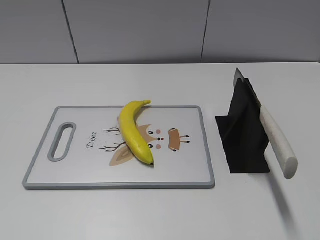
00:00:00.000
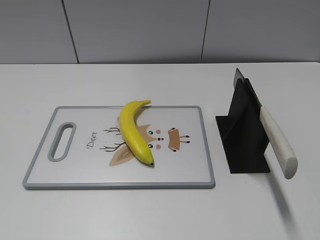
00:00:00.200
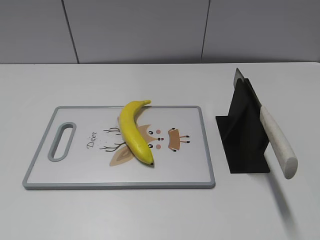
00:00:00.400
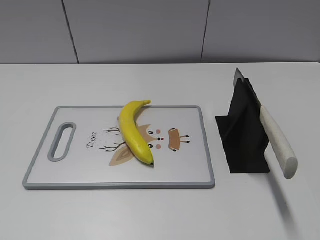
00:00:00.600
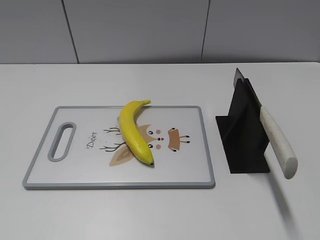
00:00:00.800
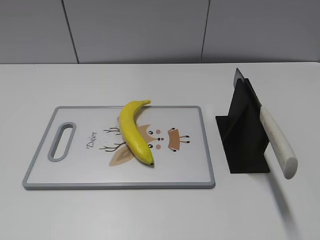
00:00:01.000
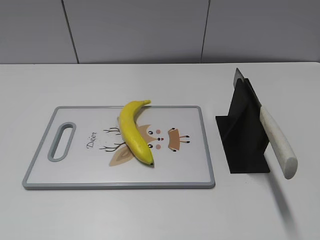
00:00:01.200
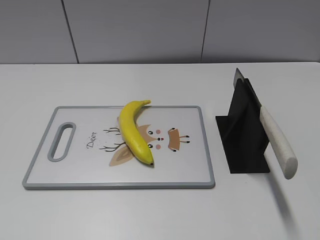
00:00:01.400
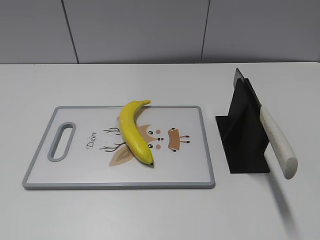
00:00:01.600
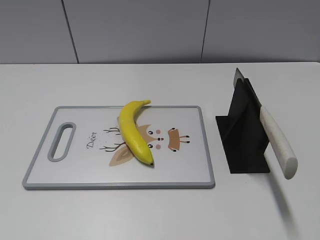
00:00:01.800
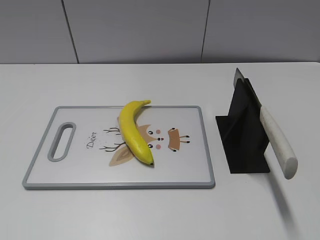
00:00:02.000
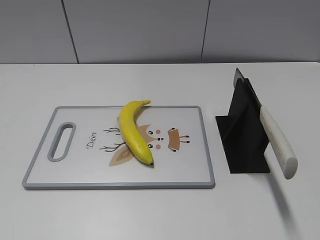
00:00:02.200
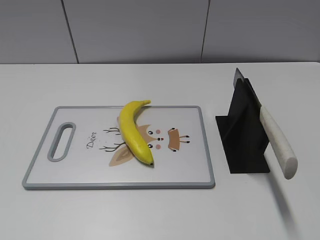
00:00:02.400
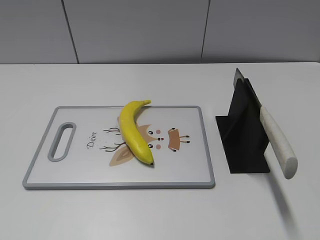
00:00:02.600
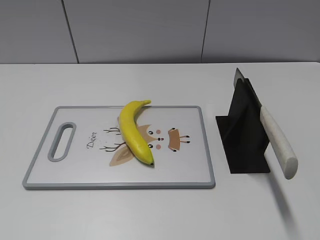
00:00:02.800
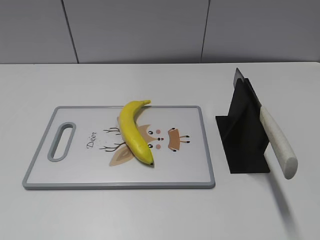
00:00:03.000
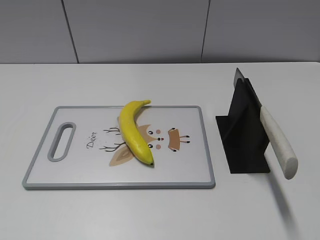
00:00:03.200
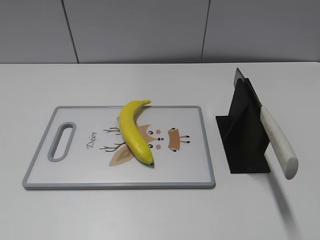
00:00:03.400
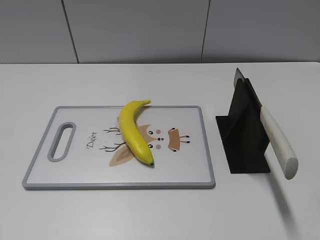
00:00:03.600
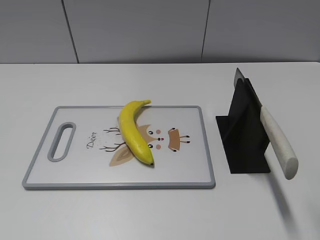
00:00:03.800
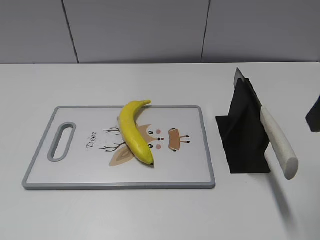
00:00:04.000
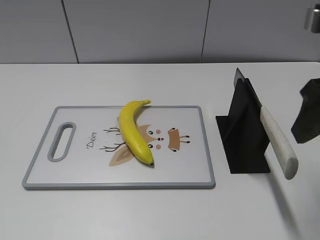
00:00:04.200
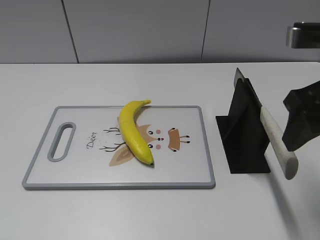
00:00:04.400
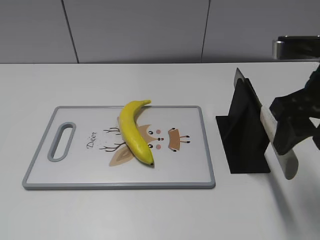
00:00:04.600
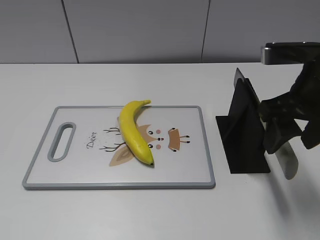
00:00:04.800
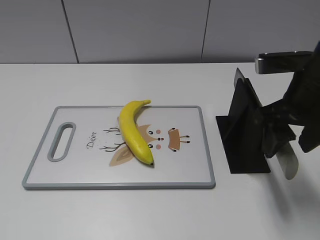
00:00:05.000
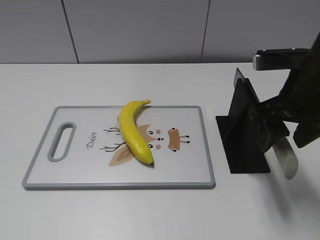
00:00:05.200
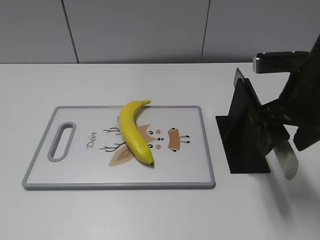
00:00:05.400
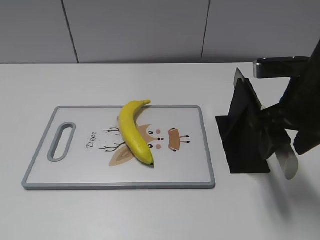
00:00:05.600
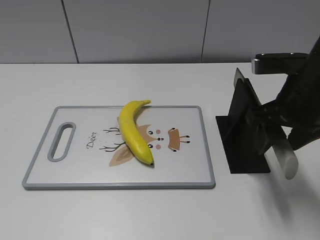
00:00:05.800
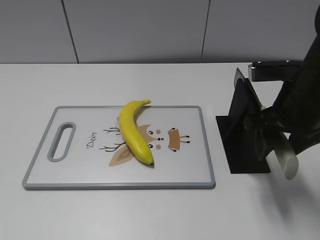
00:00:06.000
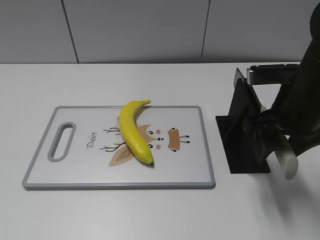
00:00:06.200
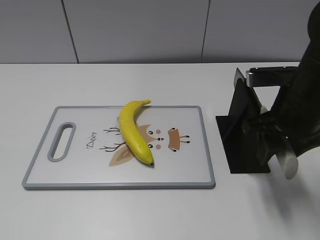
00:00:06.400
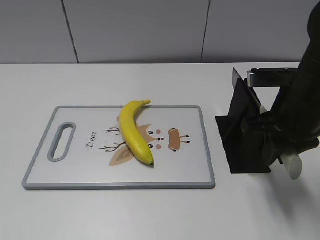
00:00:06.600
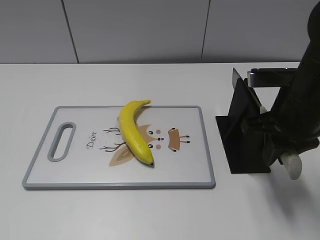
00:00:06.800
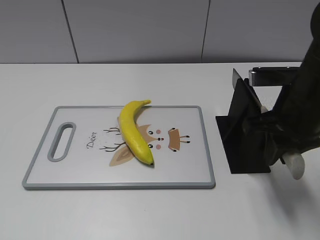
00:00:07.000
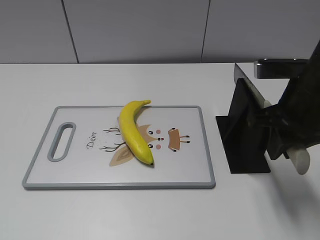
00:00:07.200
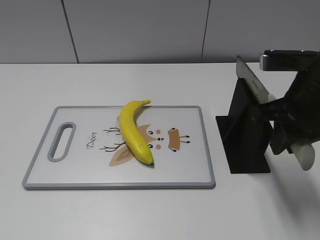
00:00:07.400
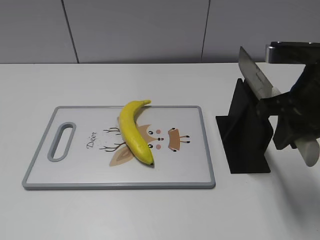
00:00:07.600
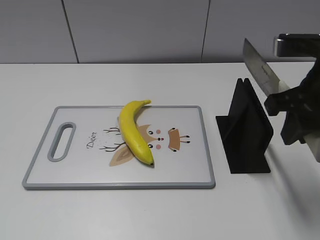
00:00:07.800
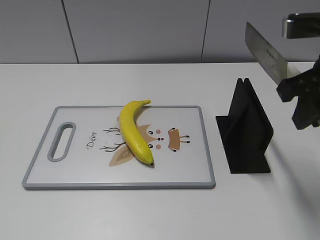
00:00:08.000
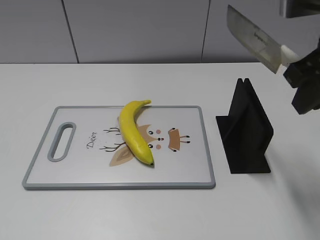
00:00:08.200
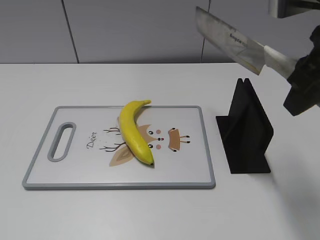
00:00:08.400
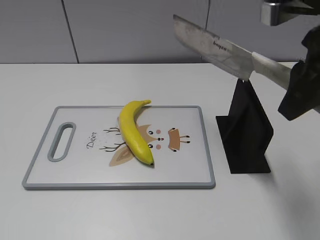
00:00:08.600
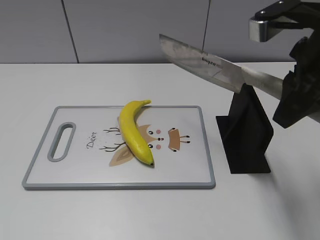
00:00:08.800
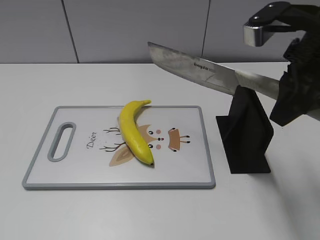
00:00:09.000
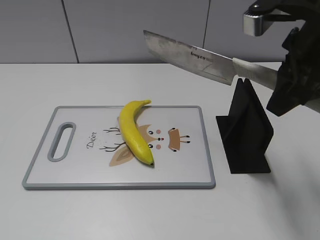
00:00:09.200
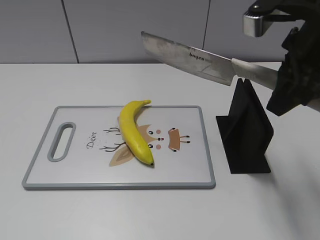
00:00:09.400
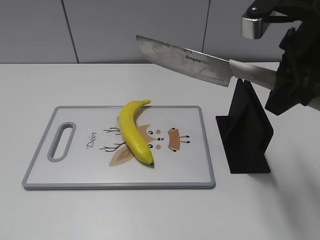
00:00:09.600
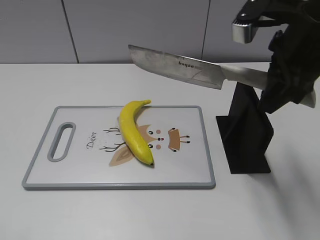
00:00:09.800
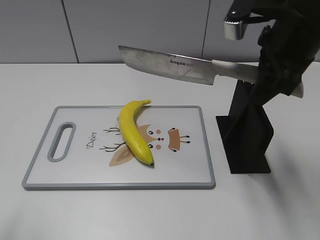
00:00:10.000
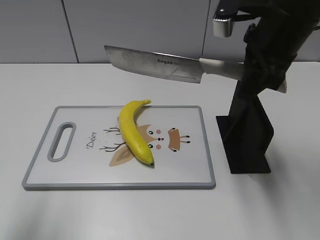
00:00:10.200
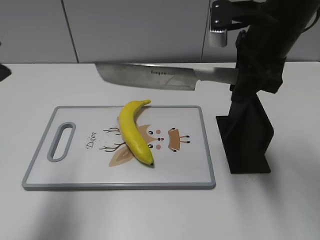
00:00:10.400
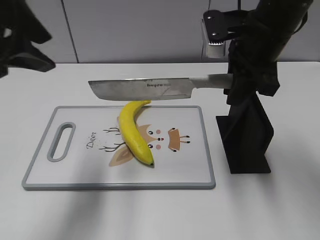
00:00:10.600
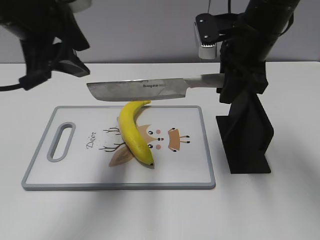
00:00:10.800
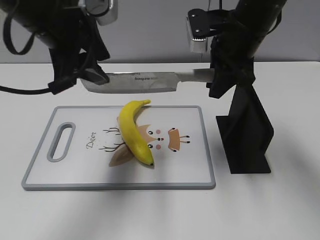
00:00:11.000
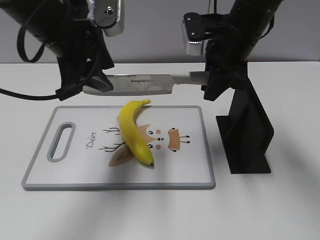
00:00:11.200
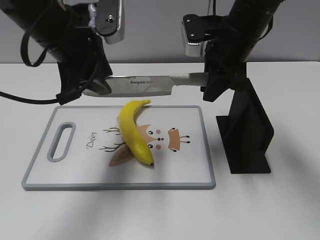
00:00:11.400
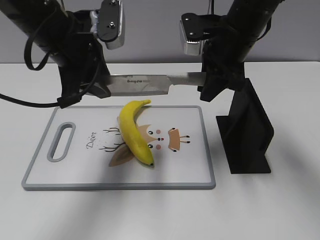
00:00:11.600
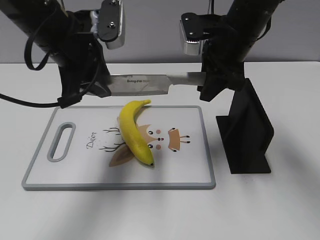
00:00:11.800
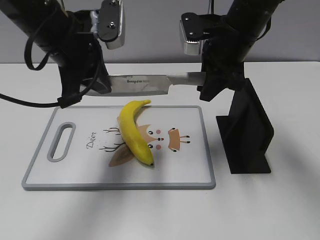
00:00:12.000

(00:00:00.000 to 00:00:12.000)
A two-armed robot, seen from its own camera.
Task of the whole recording: cut plastic banana.
Step, 00:00:00.000 - 00:00:08.600: Grab the knife handle with your right hand.
00:00:03.000 - 00:00:04.400: The right gripper is displaced forward, to the left and downward by some 20 cm.
00:00:04.400 - 00:00:06.000: The right gripper heads downward, covering about 10 cm.
00:00:06.000 - 00:00:07.600: The right gripper closes.
00:00:07.600 - 00:00:09.000: The right gripper shifts by about 5 cm.
00:00:09.000 - 00:00:10.400: The right gripper shifts approximately 5 cm forward; the left gripper is displaced forward by approximately 20 cm.
00:00:10.400 - 00:00:12.000: The left gripper moves forward, to the right and downward, roughly 20 cm, and closes up. The right gripper goes some 5 cm forward.

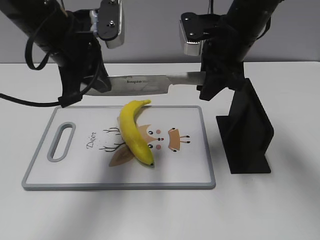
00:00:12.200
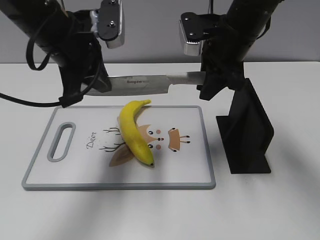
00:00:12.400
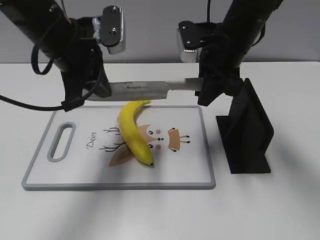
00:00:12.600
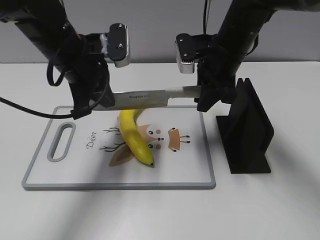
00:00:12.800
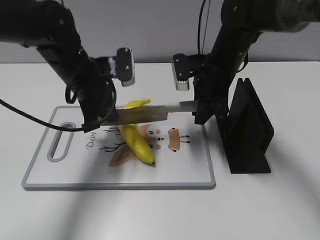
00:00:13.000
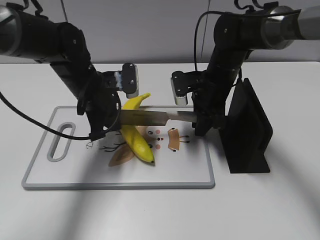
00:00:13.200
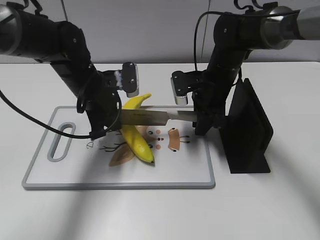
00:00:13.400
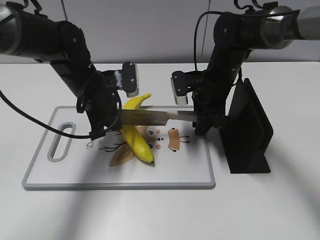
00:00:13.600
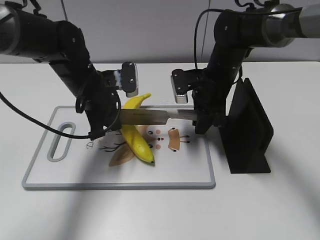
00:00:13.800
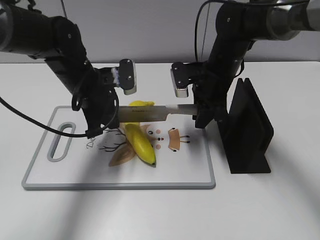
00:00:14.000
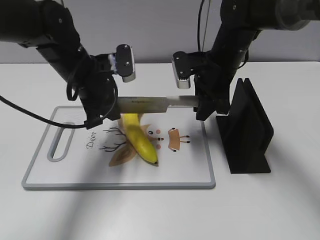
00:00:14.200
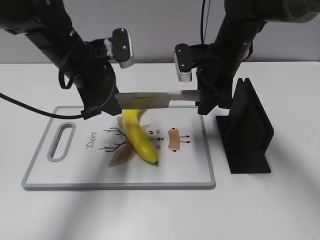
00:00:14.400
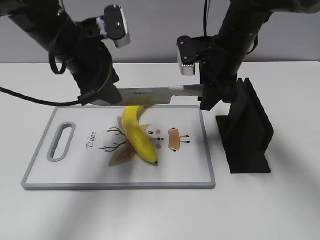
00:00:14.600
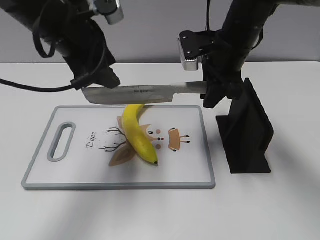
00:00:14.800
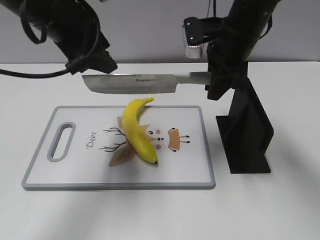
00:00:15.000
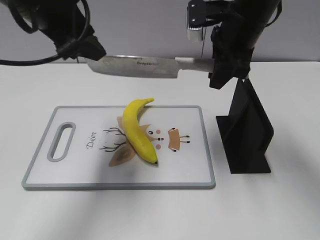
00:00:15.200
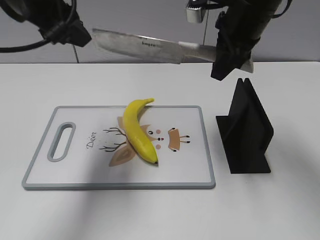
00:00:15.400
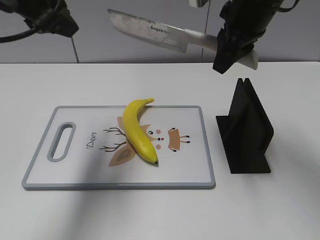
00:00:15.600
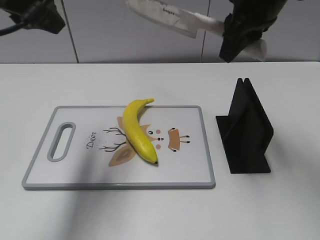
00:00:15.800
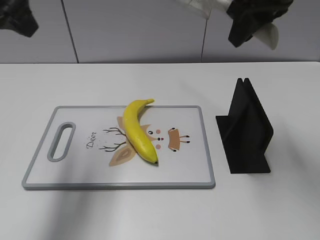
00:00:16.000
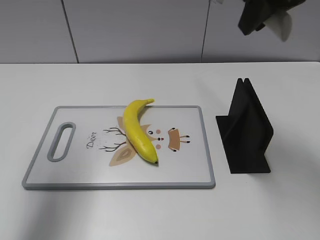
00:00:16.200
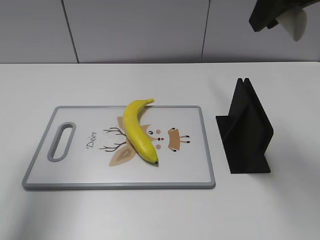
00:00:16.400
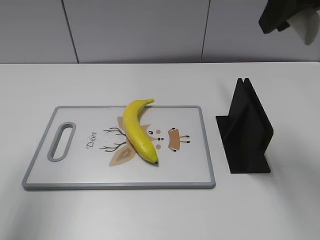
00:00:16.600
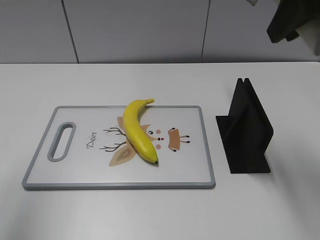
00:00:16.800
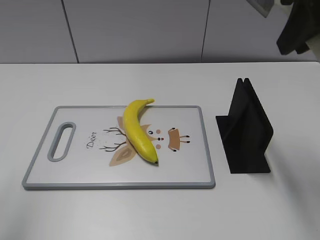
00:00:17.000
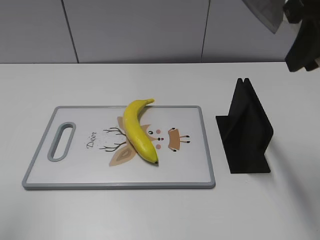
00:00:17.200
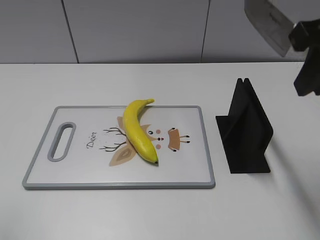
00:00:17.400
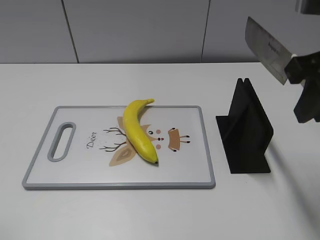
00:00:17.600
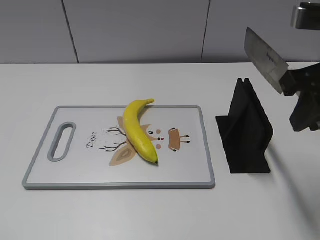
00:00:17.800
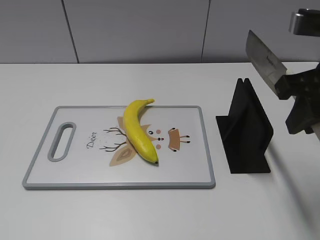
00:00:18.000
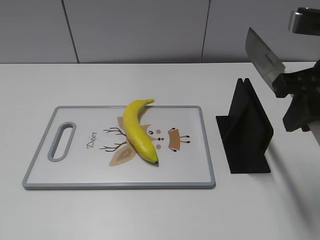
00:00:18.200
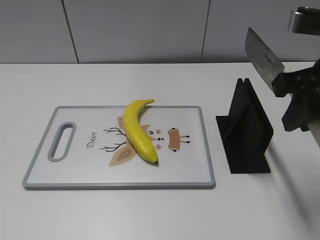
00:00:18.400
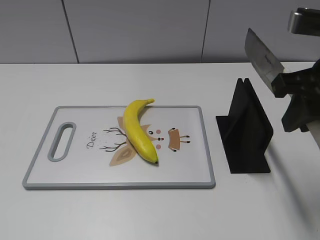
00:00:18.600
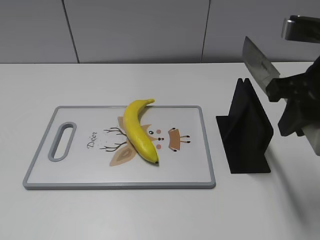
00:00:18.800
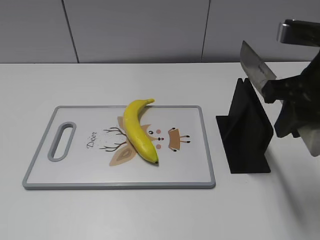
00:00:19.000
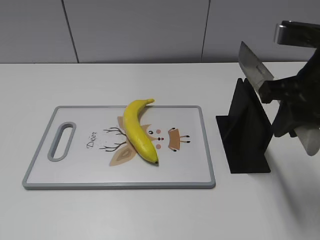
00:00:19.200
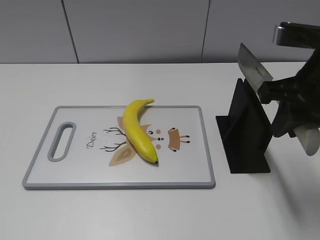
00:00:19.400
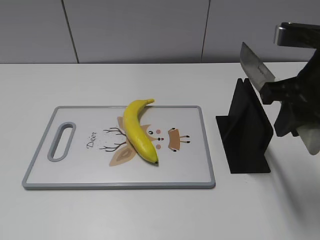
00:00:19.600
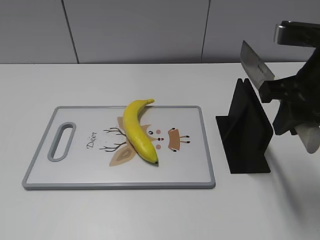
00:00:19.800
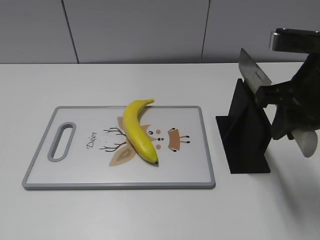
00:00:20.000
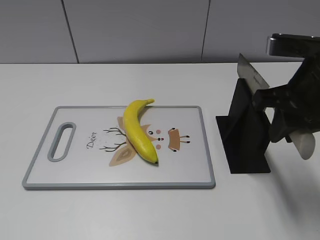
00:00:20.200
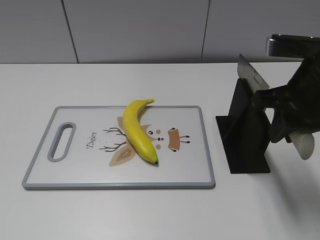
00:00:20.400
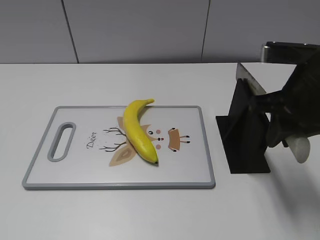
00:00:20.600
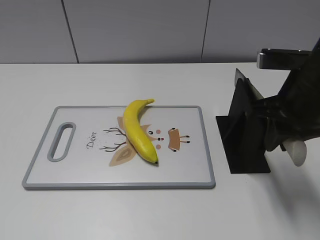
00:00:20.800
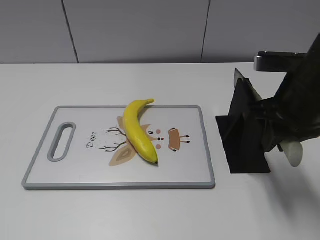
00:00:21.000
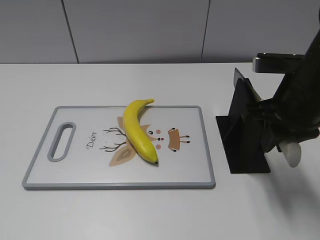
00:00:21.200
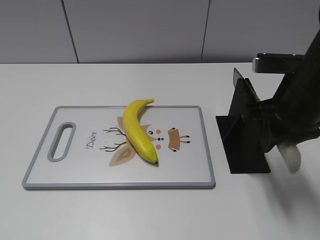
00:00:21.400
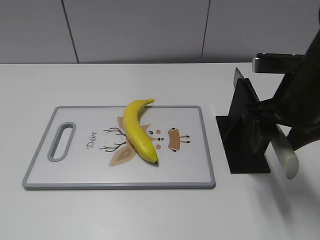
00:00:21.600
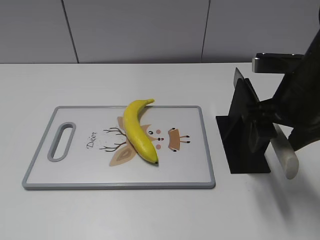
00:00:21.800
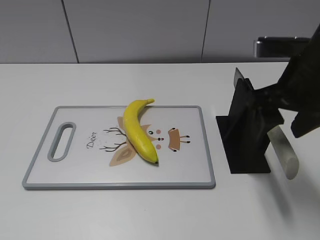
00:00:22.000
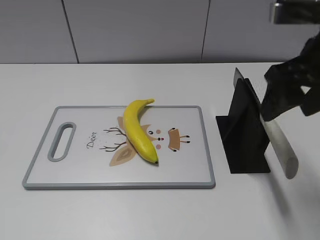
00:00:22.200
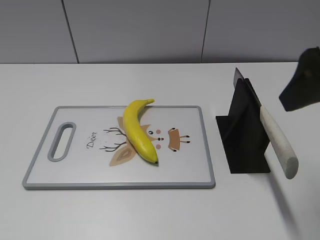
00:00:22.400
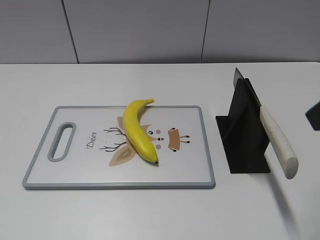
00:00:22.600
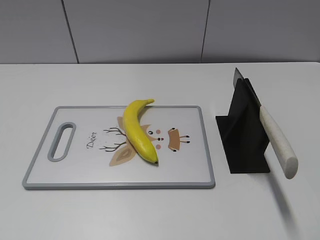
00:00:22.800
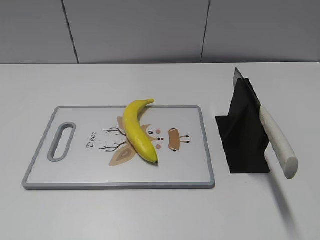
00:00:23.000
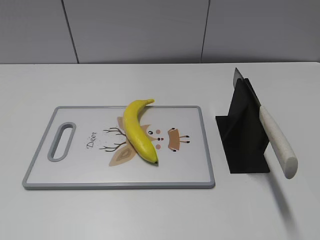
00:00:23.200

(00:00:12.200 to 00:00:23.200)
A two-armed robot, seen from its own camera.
Task of the whole recording: cut plastic banana.
Step, 00:00:12.200 - 00:00:15.200: Lift the knife with your right hand.
Step, 00:00:15.600 - 00:00:17.200: Cut the banana with your right hand.
Step, 00:00:17.400 - 00:00:18.000: Secure the blade with your left hand.
00:00:12.200 - 00:00:13.800: Both grippers move downward, roughly 10 cm.
00:00:13.800 - 00:00:15.400: Both grippers move upward, about 20 cm. The left gripper opens up.
00:00:15.400 - 00:00:17.000: The left gripper travels backward, to the left and upward by about 20 cm; the right gripper moves backward, upward and to the right, approximately 15 cm.
00:00:17.000 - 00:00:18.400: The left gripper goes about 20 cm downward and backward; the right gripper is displaced downward by roughly 10 cm.
00:00:18.400 - 00:00:20.000: There are only small adjustments of the grippers.
00:00:20.000 - 00:00:21.600: The right gripper opens.
00:00:21.600 - 00:00:23.200: The right gripper goes about 20 cm backward and upward.
